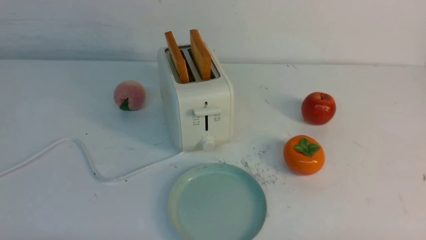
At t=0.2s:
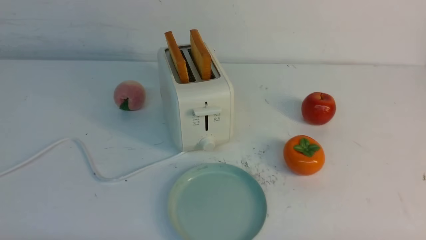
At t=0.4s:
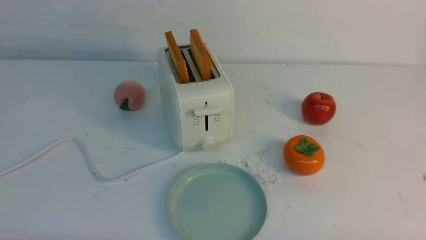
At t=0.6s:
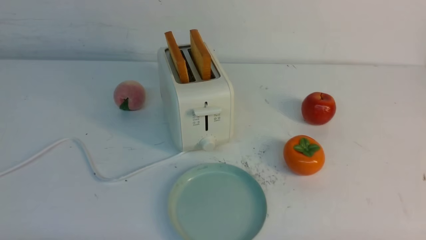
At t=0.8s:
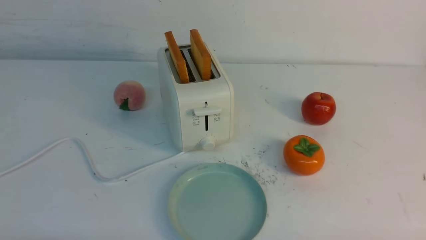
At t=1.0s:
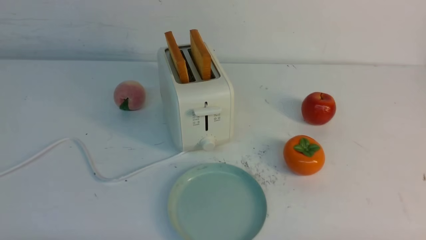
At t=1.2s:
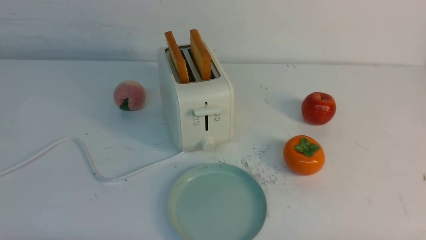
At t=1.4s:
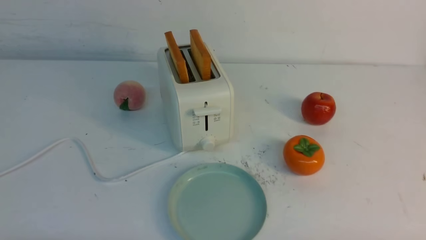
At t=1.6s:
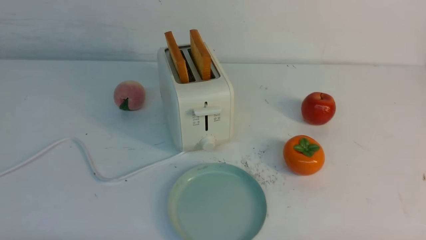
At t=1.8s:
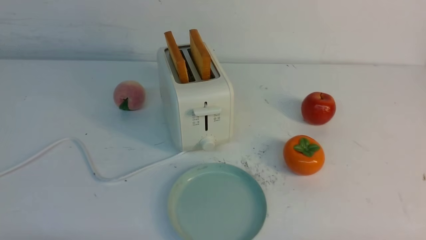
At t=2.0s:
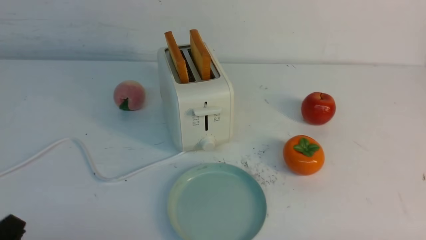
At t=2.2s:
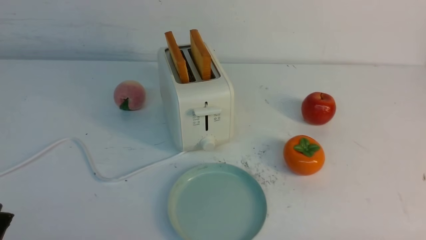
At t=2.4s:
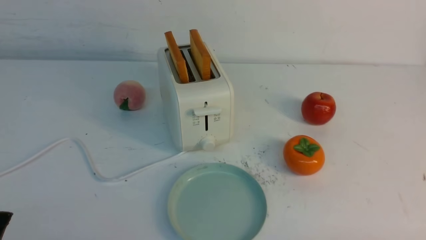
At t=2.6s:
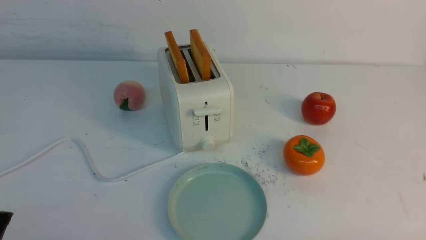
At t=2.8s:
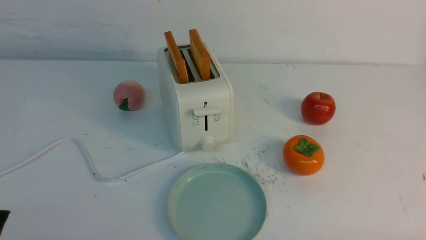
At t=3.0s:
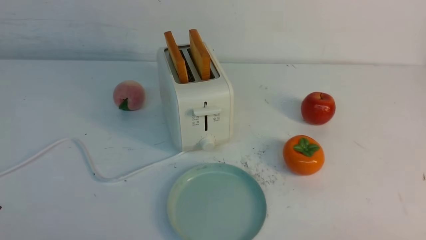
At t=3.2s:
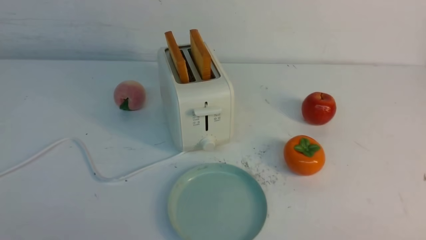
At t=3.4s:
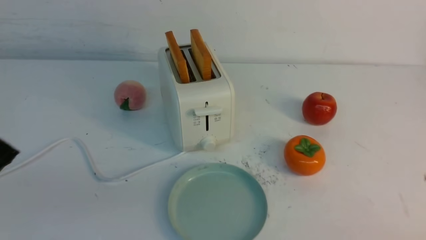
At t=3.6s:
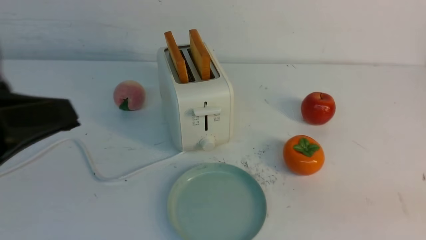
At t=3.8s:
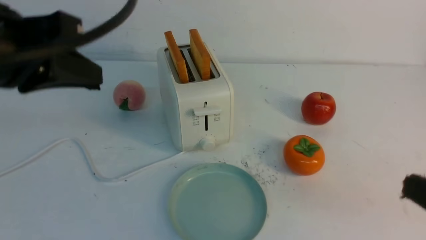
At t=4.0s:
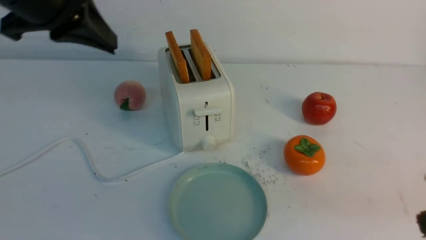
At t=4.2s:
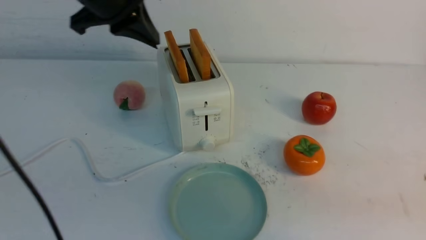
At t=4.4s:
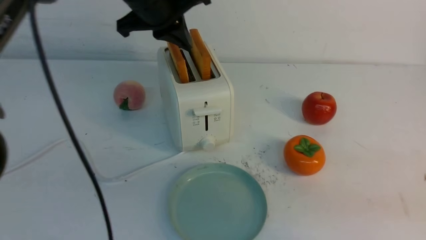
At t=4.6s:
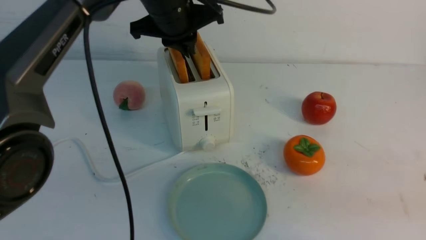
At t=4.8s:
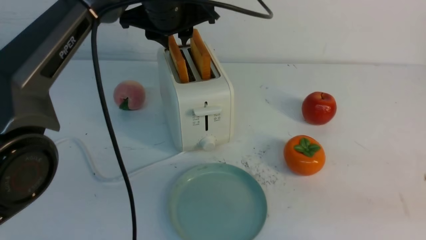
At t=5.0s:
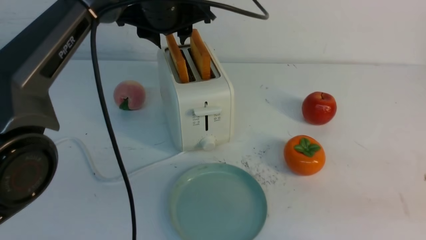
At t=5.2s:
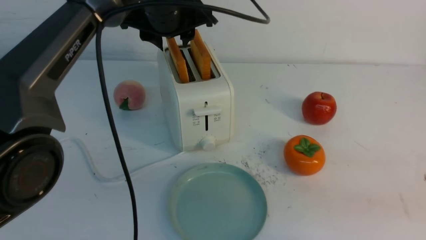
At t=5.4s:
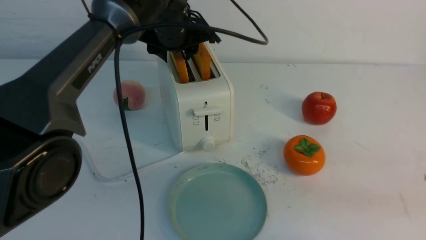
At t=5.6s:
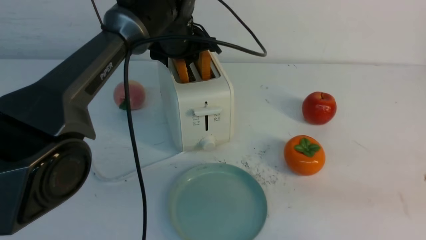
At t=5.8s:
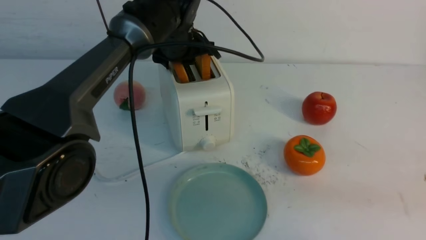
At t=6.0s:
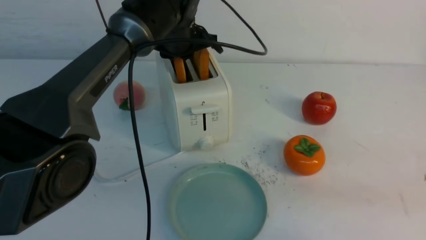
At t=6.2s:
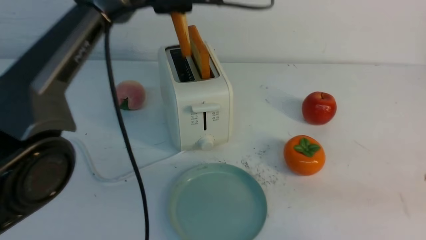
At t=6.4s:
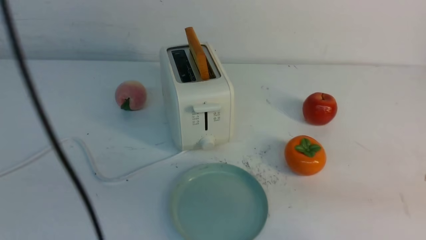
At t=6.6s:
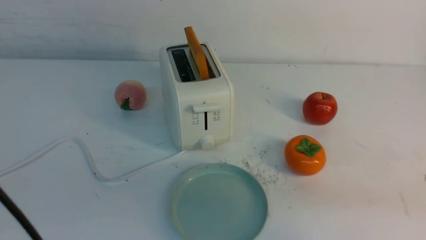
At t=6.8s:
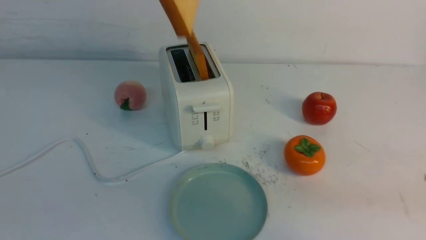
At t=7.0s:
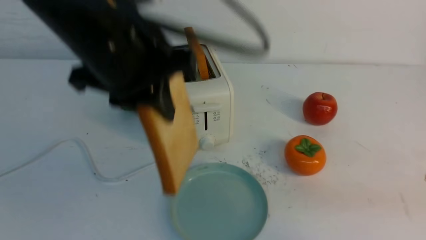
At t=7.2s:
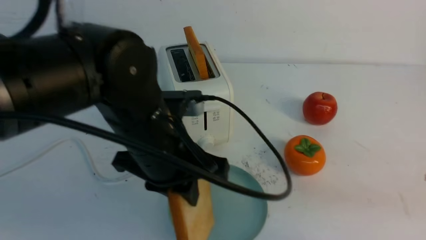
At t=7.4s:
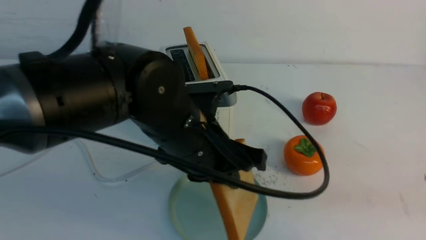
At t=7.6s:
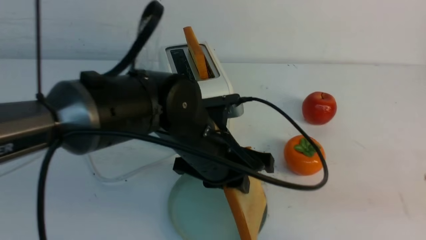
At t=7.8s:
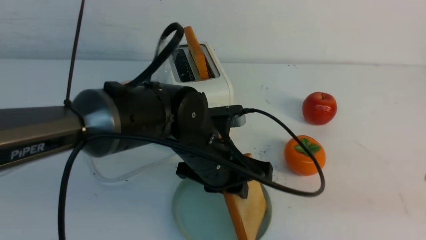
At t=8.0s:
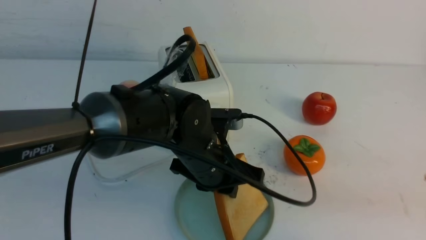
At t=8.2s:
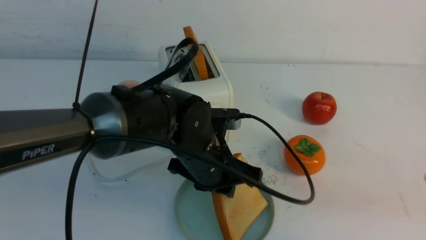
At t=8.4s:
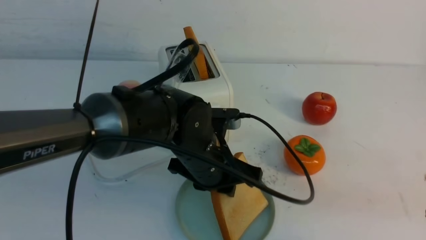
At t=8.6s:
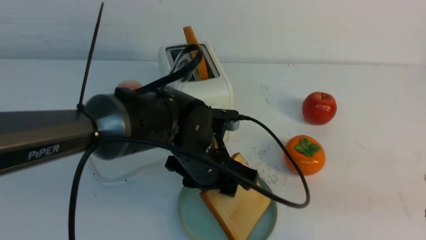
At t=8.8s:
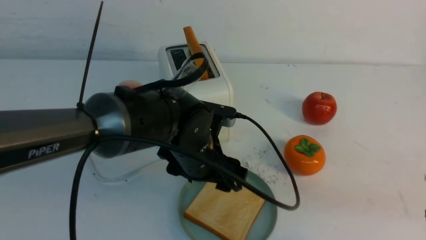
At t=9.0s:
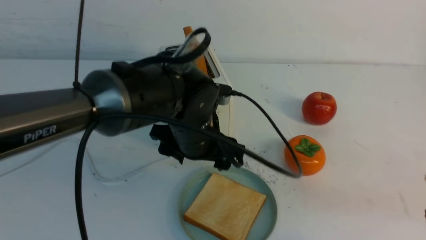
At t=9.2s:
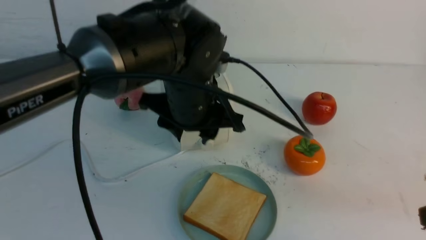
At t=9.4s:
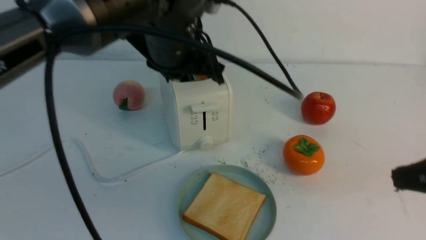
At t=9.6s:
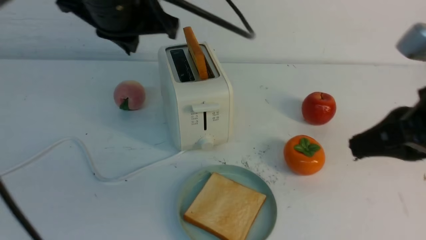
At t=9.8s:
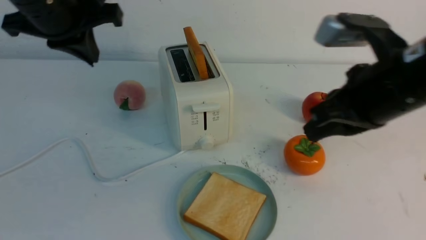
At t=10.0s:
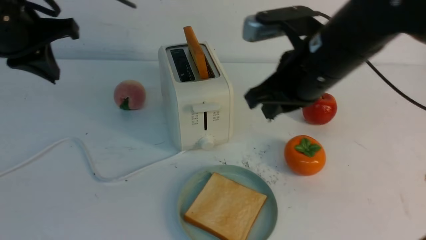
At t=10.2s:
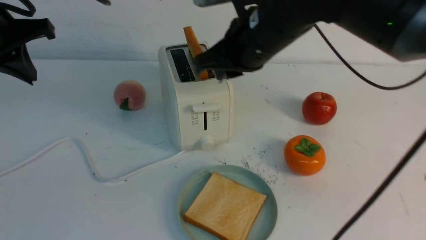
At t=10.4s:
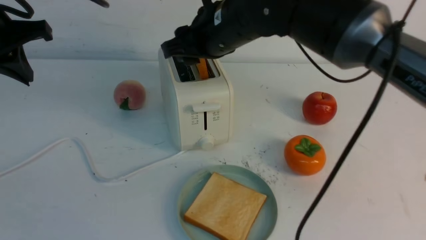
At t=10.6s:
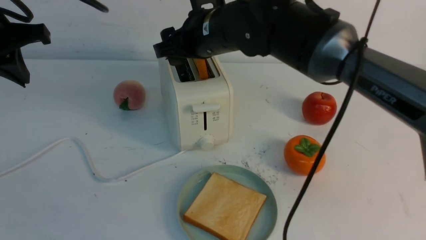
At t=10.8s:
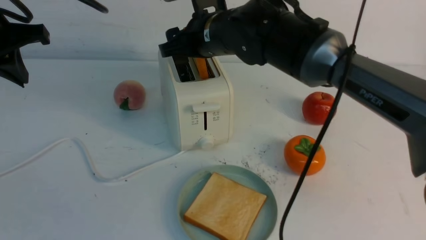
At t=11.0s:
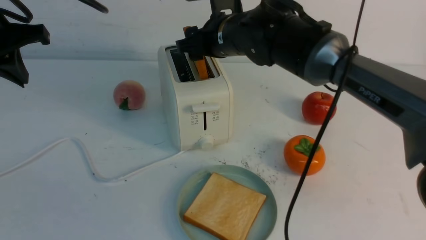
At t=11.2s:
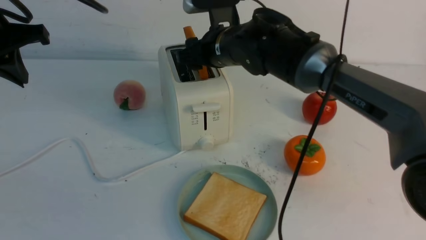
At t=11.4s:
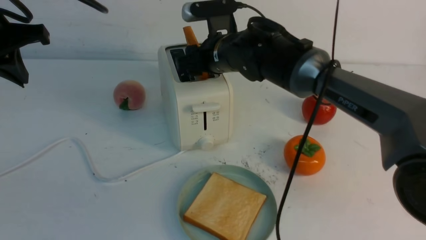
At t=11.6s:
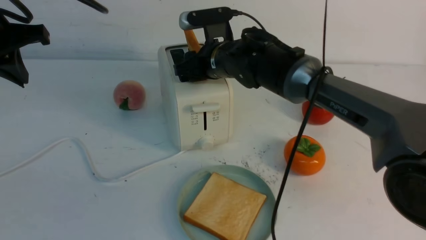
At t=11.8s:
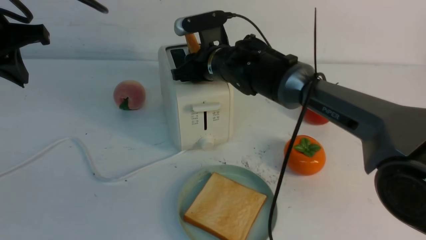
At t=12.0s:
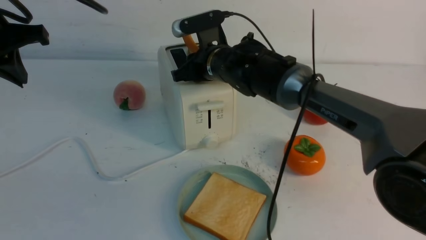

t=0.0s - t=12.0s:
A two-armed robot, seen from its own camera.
Task of the whole recording: take toasted bread from bread machine on white table place on plate.
Step, t=0.0s - t=6.2s: use the left arm to take out a slice of bread.
Step, t=6.4s - t=8.8s: use the left arm to put a slice of bread into the empty plate.
t=0.0s - t=1.6s: Both grippers stay put.
t=3.0s - t=4.4s: The left gripper shifts approximately 40 cm forward, upward and to the right. The right gripper shifts some 15 cm upward and forward, and closes.
t=4.4s - t=6.0s: The left gripper is displaced forward by roughly 5 cm, and opens, then closes once more.
t=6.0s - t=7.6s: The left gripper moves backward and downward, approximately 20 cm.
t=7.6s - t=9.0s: The left gripper opens.
t=9.0s - t=10.4s: The right gripper heads to the left and forward, covering about 35 cm, and opens its fingers. Meanwhile the left gripper heads to the left and upward, covering roughly 30 cm, and closes.
t=10.4s - t=12.0s: The right gripper travels downward and forward by about 15 cm.

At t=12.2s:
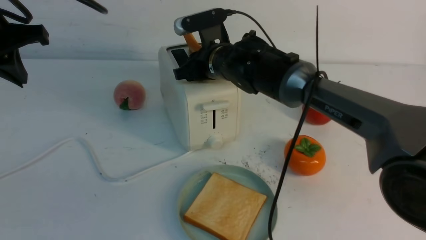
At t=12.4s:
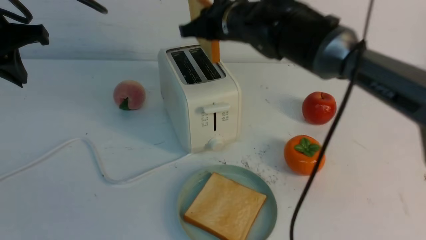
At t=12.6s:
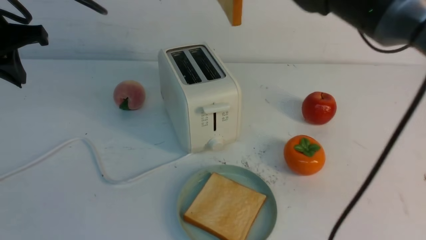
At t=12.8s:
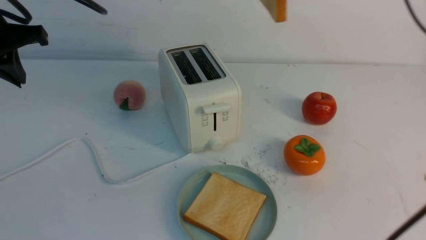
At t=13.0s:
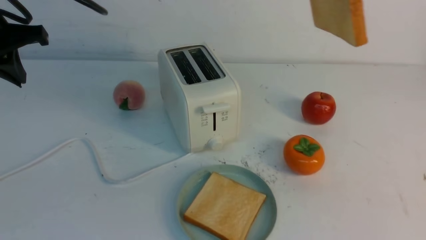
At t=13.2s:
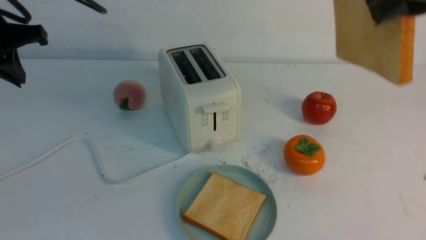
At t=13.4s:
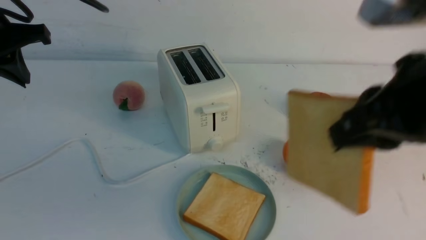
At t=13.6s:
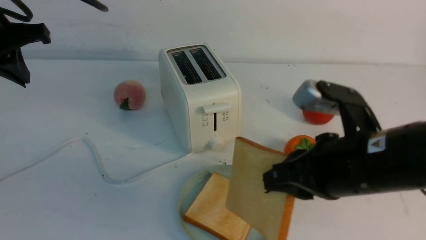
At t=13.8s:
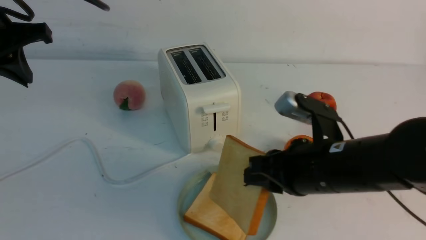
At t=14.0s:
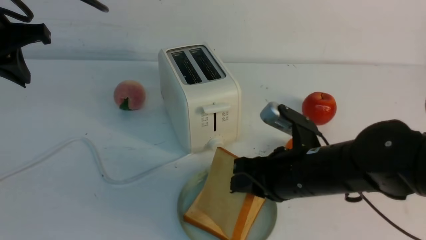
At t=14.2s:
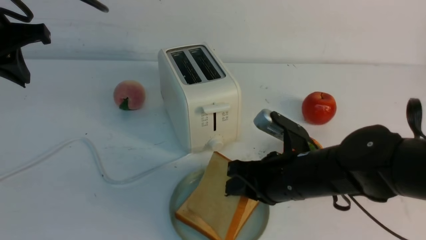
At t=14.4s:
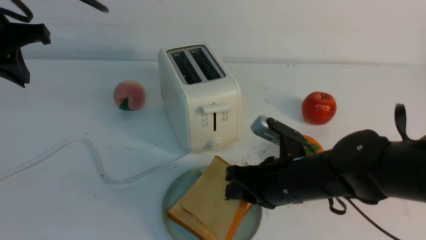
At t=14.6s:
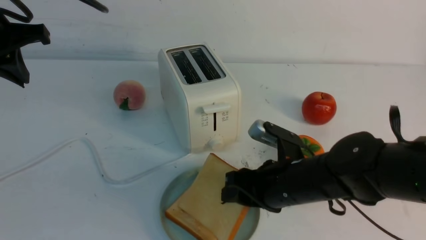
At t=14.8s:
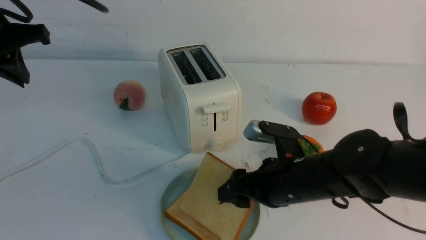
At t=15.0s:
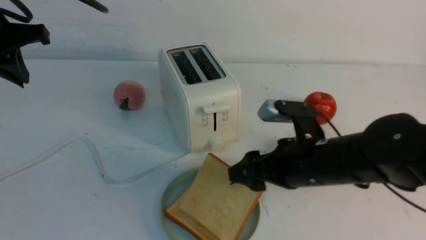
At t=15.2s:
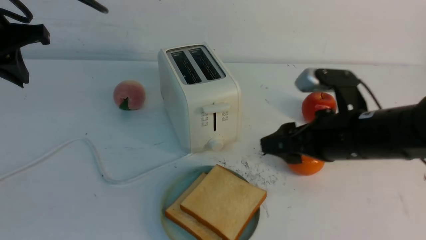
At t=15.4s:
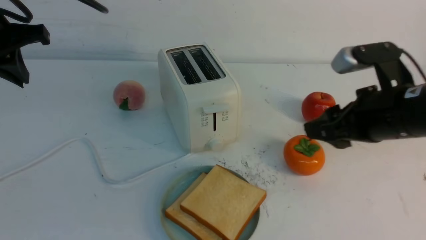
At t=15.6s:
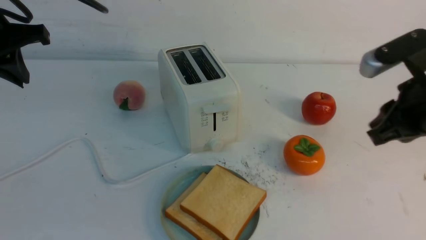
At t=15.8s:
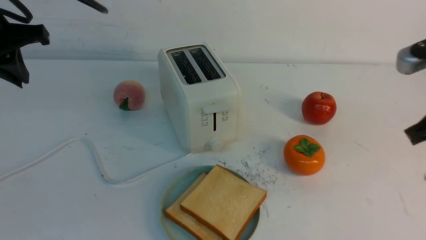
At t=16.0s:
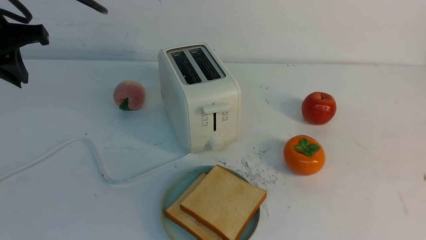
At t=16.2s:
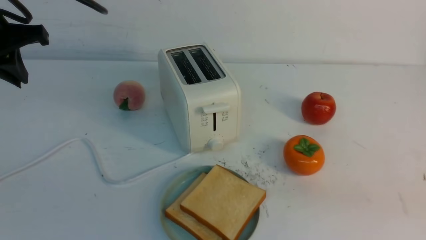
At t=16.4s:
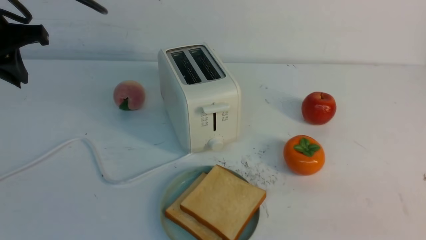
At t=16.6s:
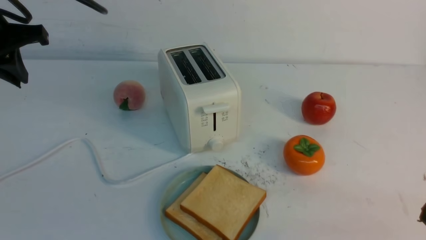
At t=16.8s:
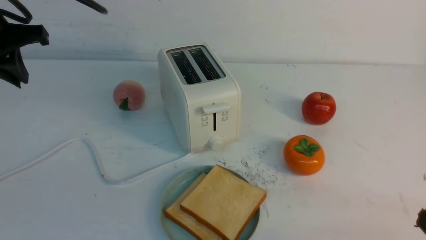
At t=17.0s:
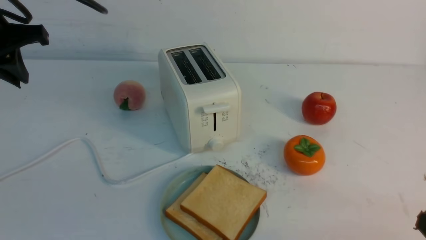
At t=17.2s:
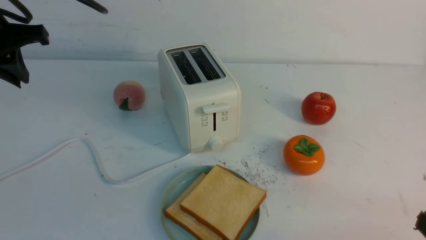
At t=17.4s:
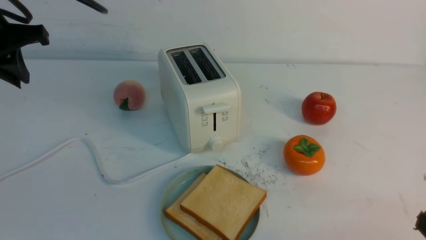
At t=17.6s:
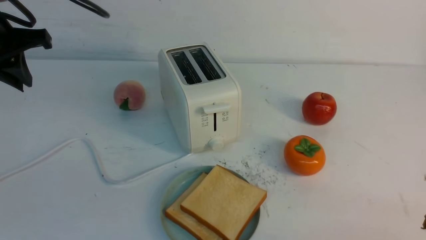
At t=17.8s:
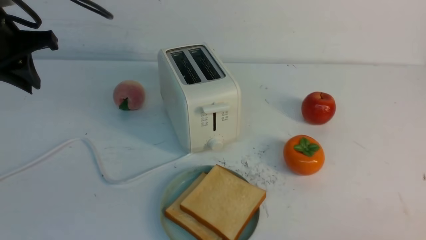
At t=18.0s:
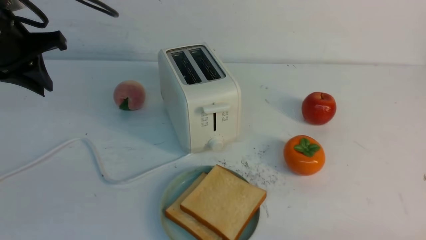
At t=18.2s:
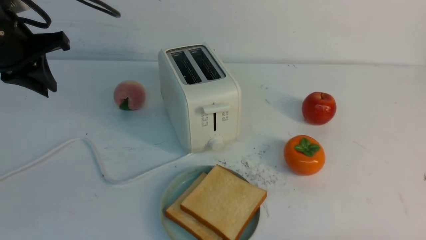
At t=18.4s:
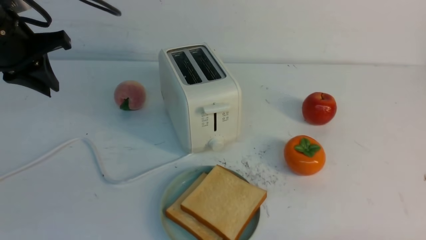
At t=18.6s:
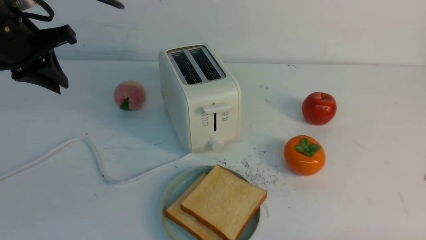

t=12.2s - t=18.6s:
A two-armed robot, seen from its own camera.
Task of the whole recording: take toasted bread from bread machine on white table place on plate.
Step, t=12.6s - t=15.0s: use the right arm to put a slice of bread into the plate.
t=12.2s - t=13.8s: The right gripper is displaced backward and to the right by some 25 cm.
t=13.8s - t=15.4s: The right gripper moves to the right and upward, approximately 10 cm, and opens its fingers.
t=15.4s - t=17.0s: The right gripper shifts roughly 20 cm backward, downward and to the right, and closes up.
